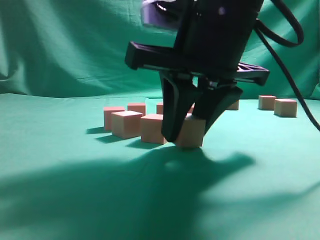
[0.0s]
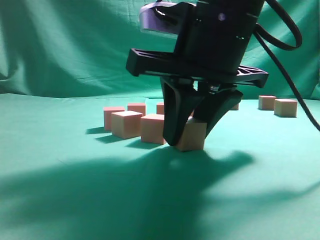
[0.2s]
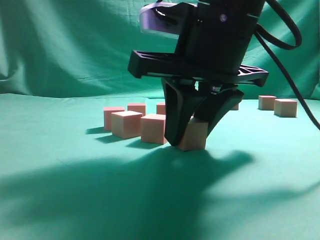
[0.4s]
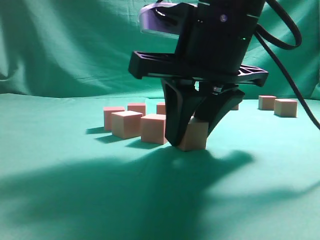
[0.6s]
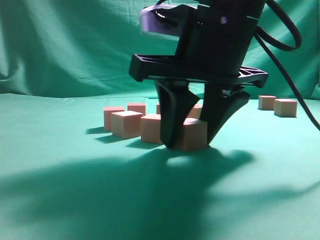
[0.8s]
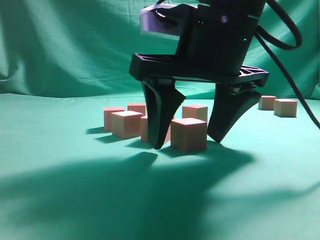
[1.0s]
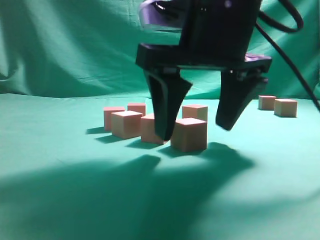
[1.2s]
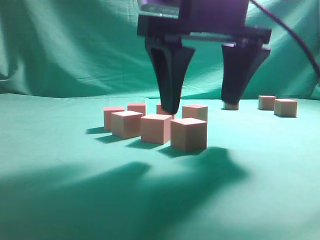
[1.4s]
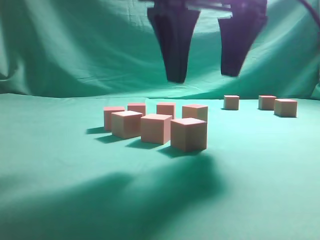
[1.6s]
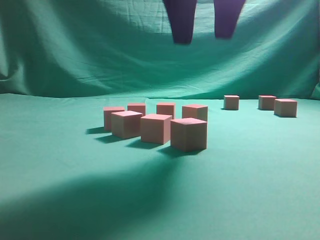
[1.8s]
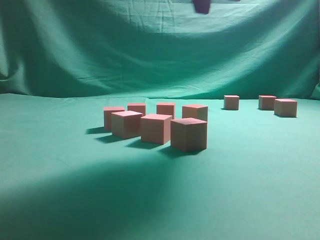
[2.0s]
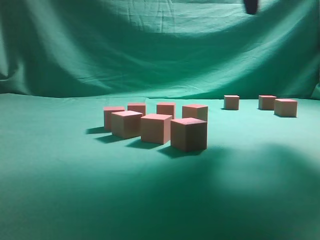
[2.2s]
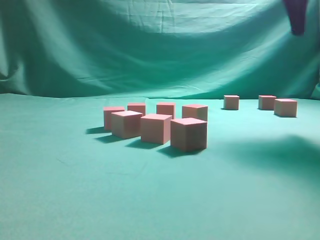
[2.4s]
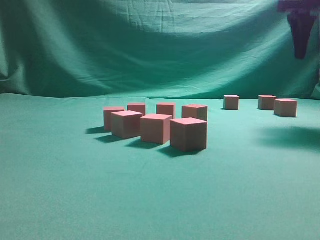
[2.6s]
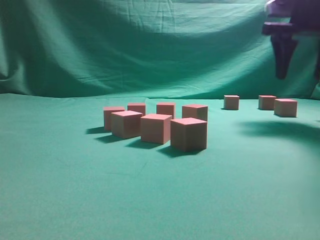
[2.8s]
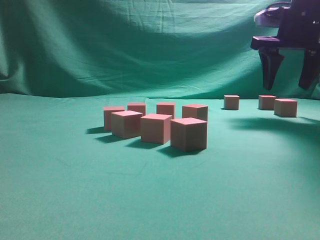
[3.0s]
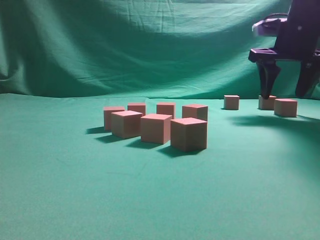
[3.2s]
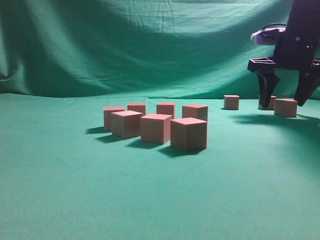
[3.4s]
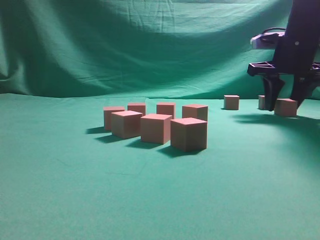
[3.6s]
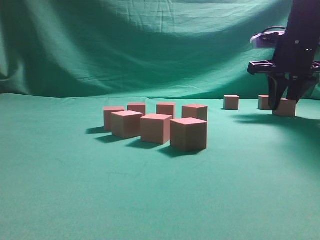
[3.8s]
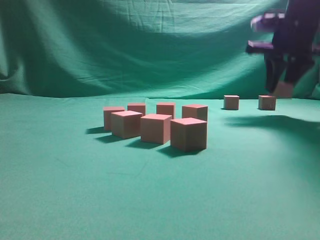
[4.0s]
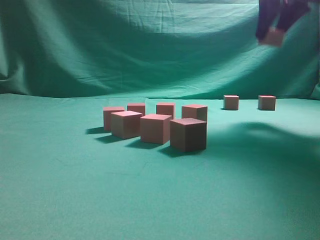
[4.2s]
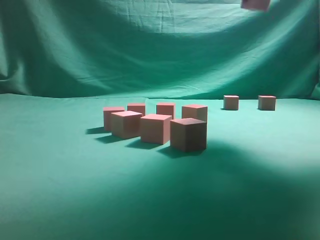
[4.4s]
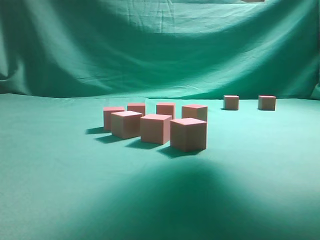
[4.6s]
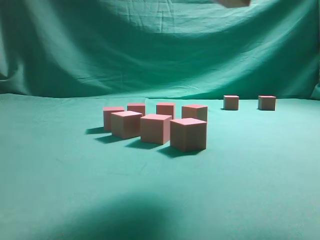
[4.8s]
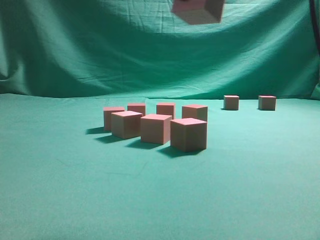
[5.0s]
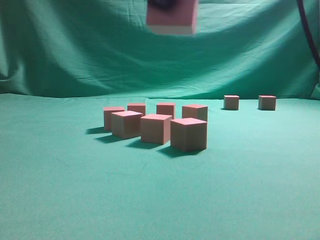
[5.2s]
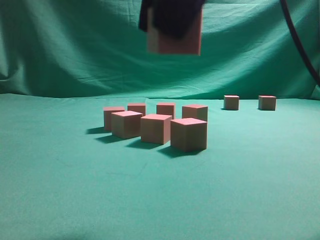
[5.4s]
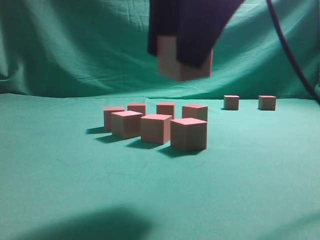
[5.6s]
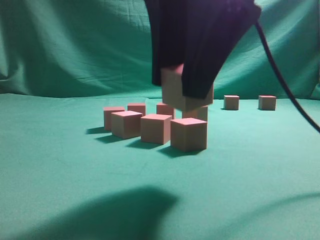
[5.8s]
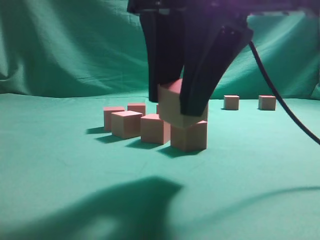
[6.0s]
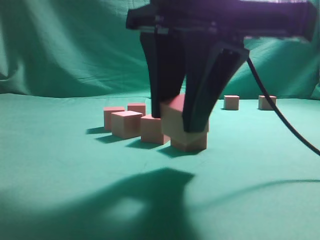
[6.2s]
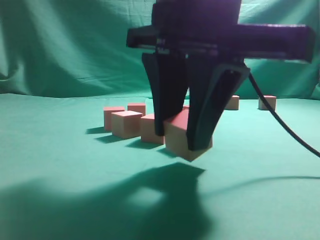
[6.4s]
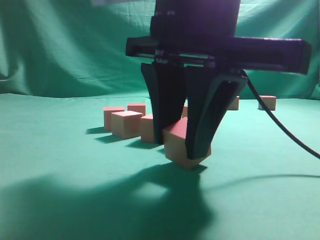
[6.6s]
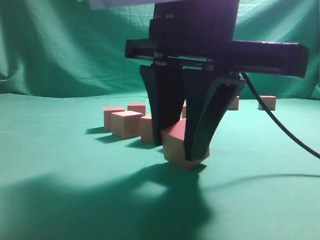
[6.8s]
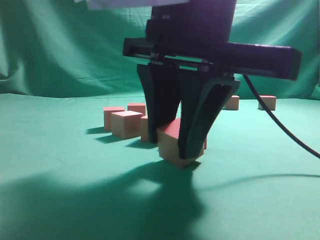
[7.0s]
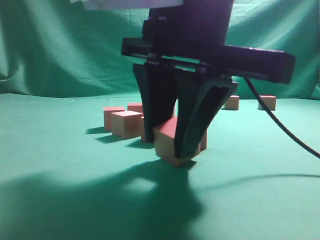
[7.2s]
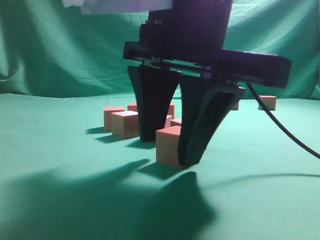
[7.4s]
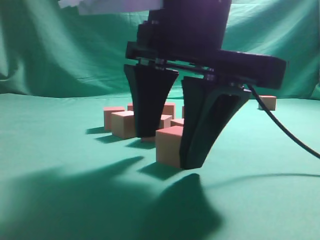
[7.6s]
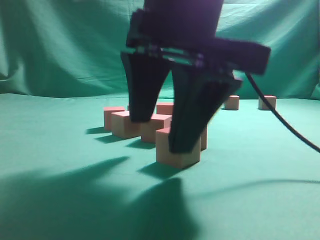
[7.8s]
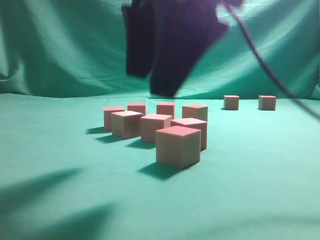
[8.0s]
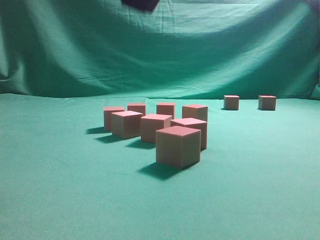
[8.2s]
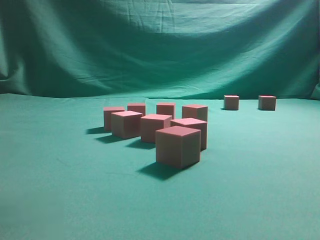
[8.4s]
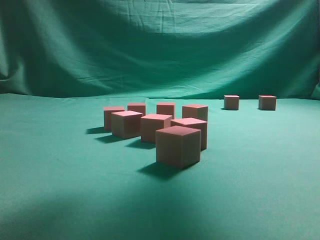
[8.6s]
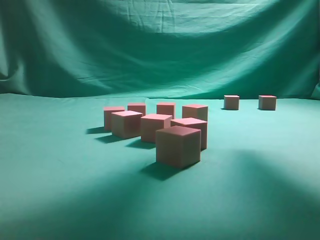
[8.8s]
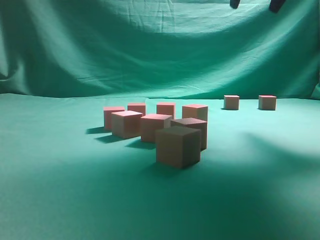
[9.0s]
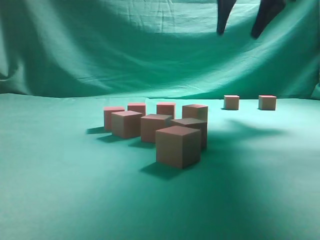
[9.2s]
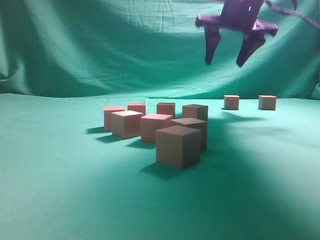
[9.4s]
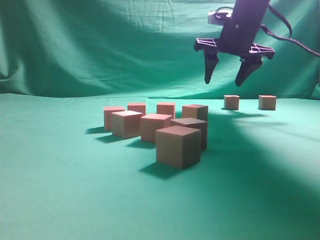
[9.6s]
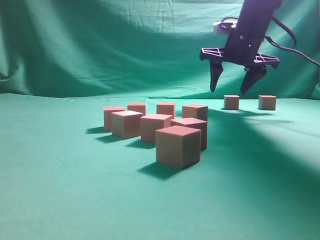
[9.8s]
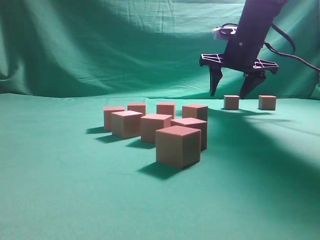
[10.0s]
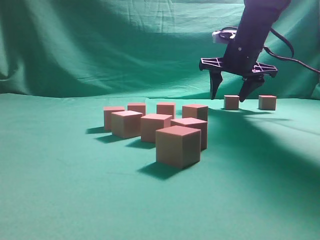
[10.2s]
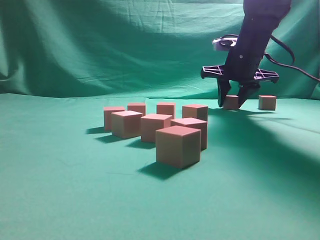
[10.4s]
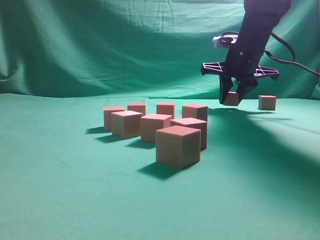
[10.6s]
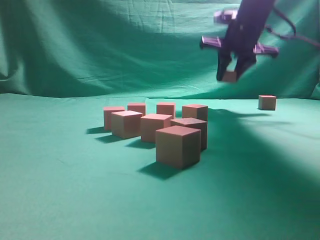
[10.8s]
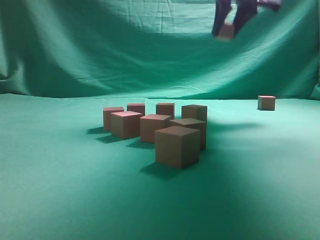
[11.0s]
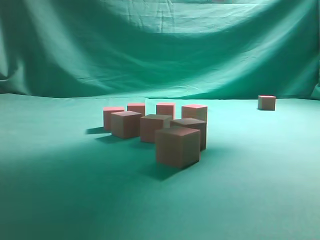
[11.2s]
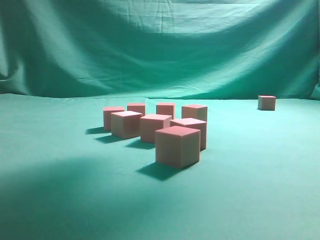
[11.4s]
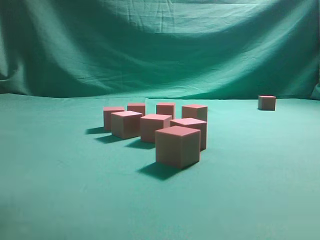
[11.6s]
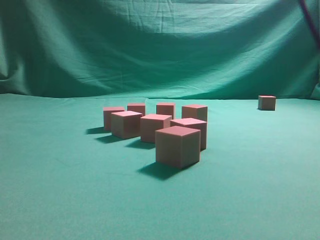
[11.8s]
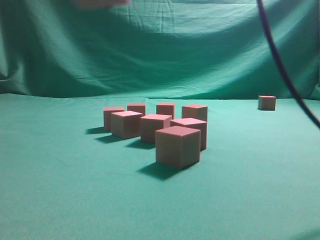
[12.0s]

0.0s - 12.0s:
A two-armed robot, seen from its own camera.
Task of the whole recording: pick up the multiple cubes in two columns one by one and place them in another position on the table.
Step, 1.8s - 3.8s: Pick up the block on the table.
Step, 4.0s - 7.8s: Place the block at the correct position to assemble the letter S.
Step, 8.2s - 10.6s: Pick up the block on the table.
0.0s - 1.6s: The right gripper heads upward, covering about 10 cm, and opens its fingers.
1.6s - 3.0s: The right gripper moves to the right and forward, some 25 cm.
3.0s - 4.4s: The right gripper goes about 15 cm upward, backward and to the left, and closes up.
4.4s - 6.0s: The right gripper travels backward, to the left and downward by about 25 cm.
6.0s - 7.6s: The right gripper opens up.
7.6s - 9.0s: The right gripper is displaced forward, upward and to the right by roughly 25 cm.
9.0s - 10.4s: The right gripper shifts some 20 cm downward and forward.
10.4s - 12.0s: The right gripper moves backward and to the left, approximately 40 cm.

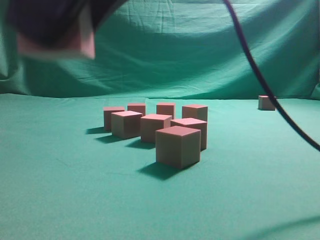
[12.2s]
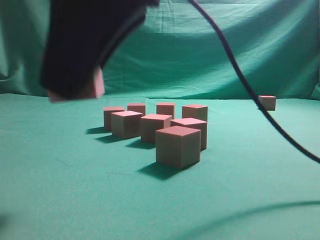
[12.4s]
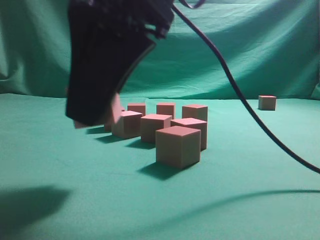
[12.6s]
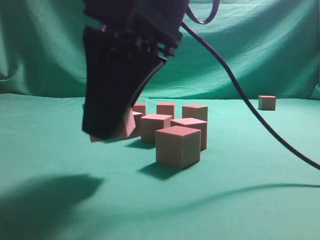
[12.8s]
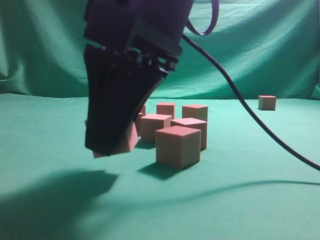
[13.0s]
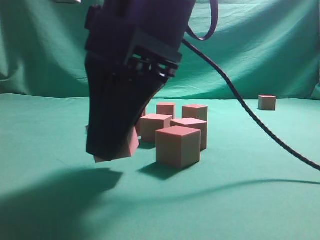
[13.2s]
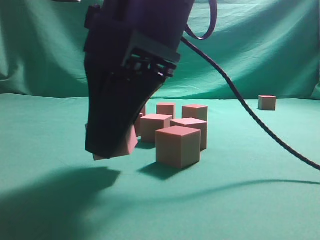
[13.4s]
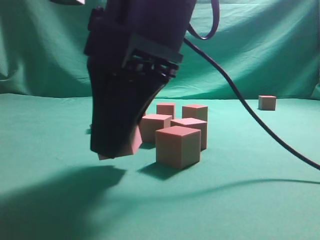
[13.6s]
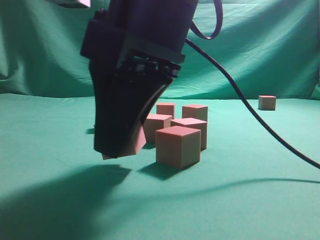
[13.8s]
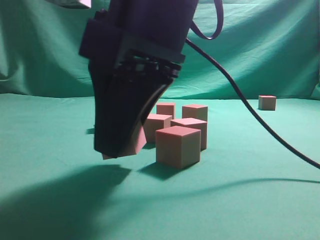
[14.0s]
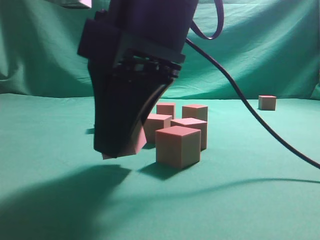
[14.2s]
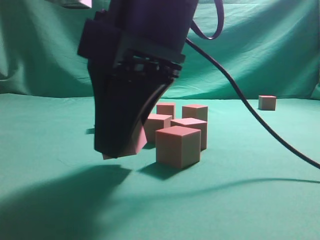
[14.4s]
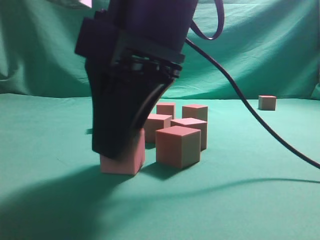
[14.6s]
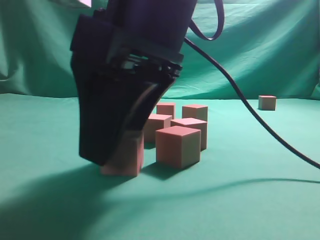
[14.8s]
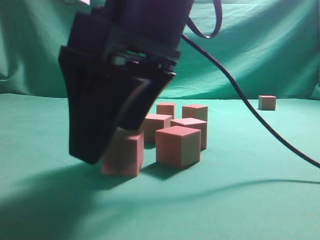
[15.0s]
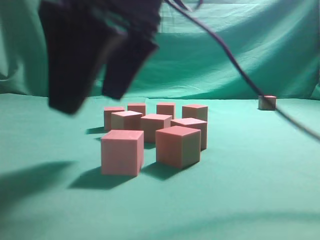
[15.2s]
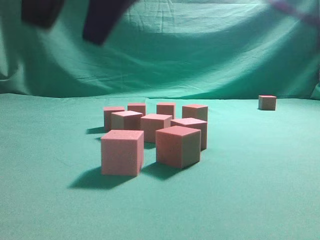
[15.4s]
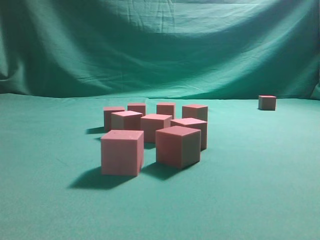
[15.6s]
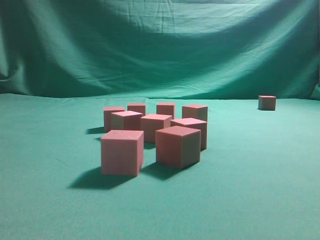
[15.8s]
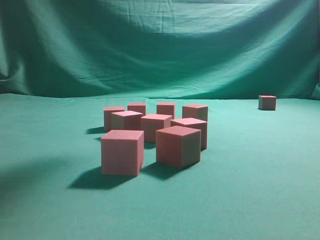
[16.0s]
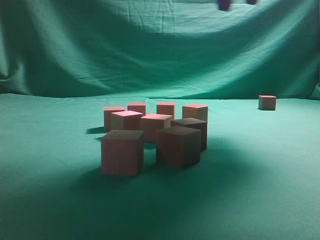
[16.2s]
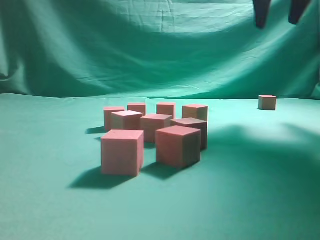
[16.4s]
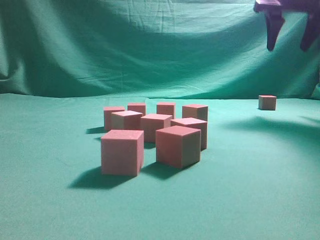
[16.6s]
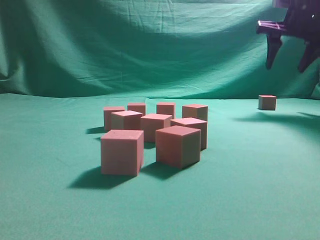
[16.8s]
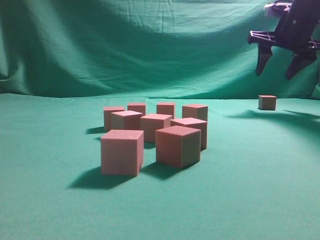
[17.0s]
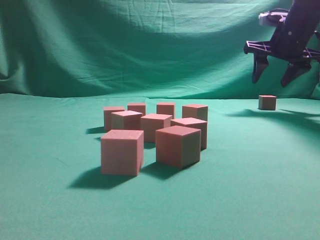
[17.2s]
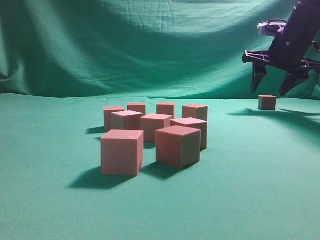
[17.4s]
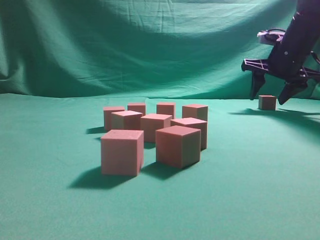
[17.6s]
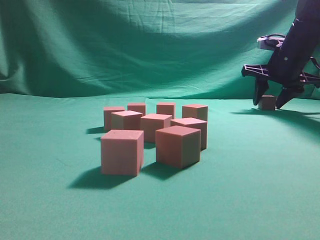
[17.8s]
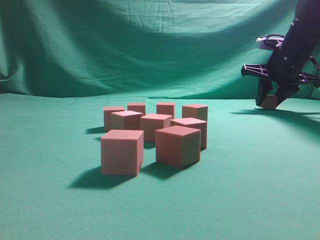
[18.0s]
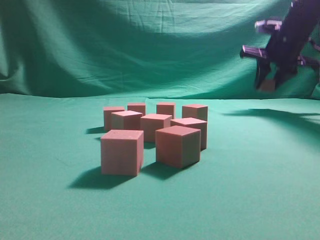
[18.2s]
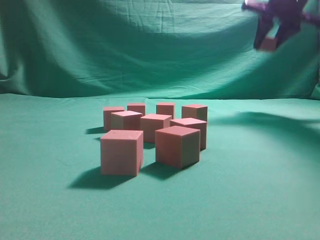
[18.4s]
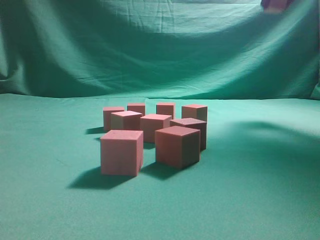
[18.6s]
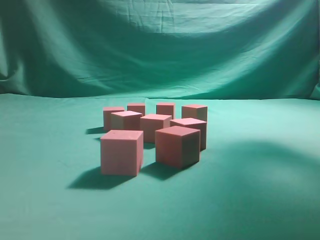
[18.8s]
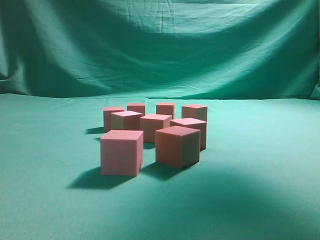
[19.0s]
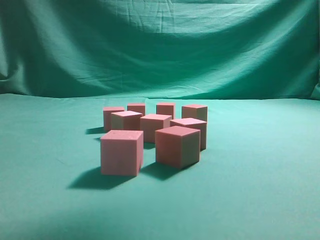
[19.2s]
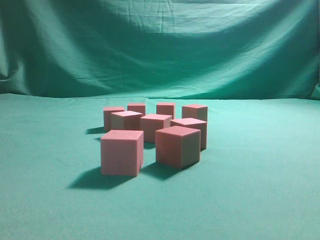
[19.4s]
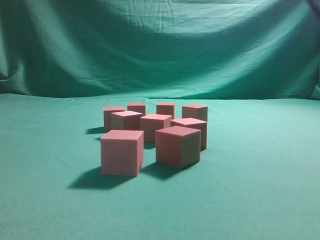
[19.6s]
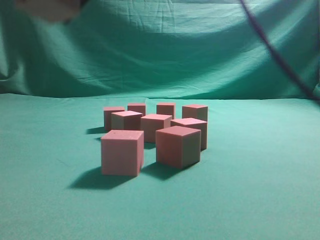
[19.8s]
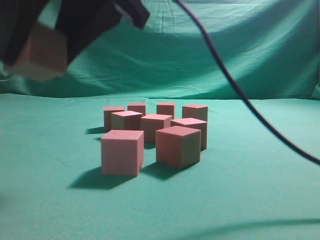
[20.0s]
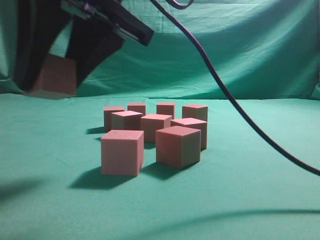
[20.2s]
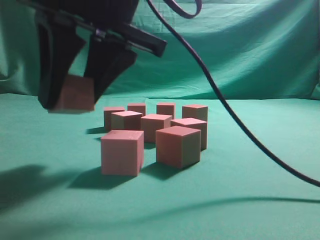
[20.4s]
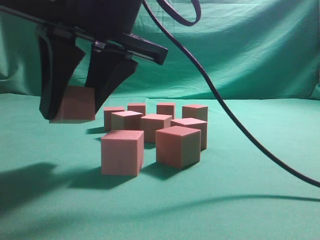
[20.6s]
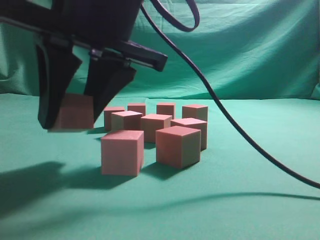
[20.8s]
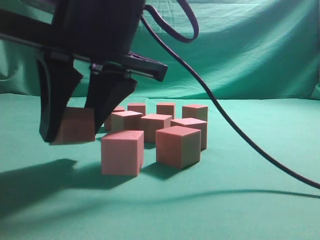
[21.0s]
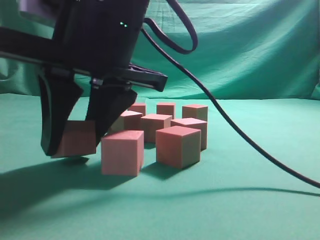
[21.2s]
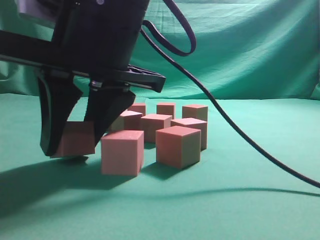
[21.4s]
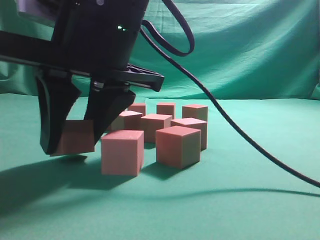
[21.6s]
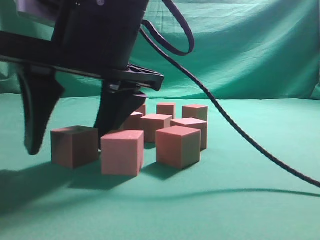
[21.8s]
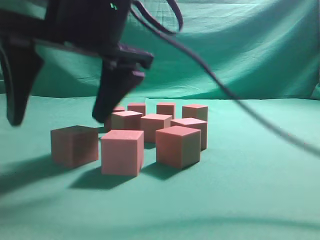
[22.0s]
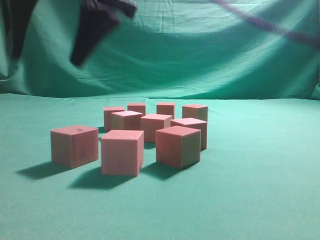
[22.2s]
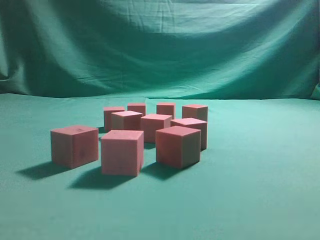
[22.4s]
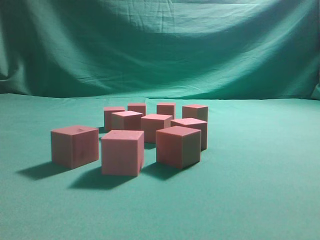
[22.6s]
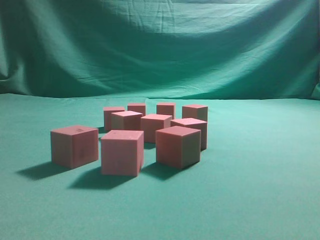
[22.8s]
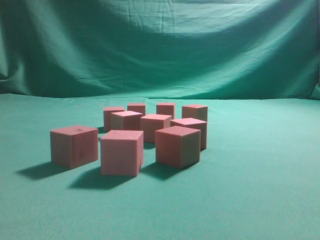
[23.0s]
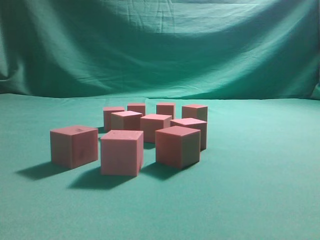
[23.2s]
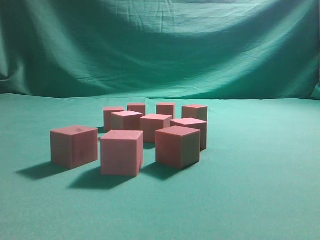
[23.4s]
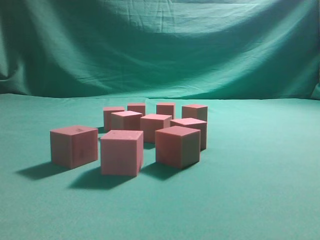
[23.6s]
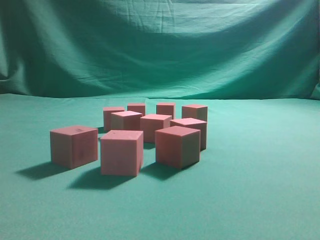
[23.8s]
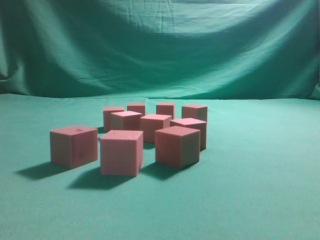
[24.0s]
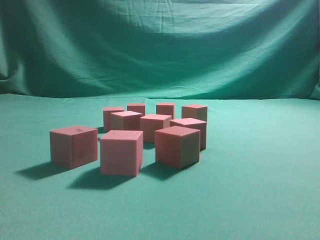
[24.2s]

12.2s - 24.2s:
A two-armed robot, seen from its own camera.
Task of the whole recording: pick up the multiple cubes in two columns one by one and place them in another position on the table.
Step, 12.2s - 15.2s: Place the block at the correct position to assemble the letter S.
Step, 15.4s - 18.0s: Pick up the block on the table.
Step, 18.2s - 22.0s: Place the block at the correct position to assemble the letter S.
12.2s - 13.8s: The right gripper shifts about 5 cm downward.
13.8s - 15.2s: The right gripper opens up.
15.2s - 16.6s: The right gripper goes roughly 35 cm to the right and forward.
16.6s - 18.2s: The right gripper is displaced downward and forward by roughly 10 cm, and closes its fingers.
18.2s - 19.8s: The right gripper travels backward and to the left by about 40 cm.
19.8s - 21.2s: The right gripper moves downward, roughly 10 cm.
21.2s - 22.6s: The right gripper moves upward, about 25 cm, and closes.
